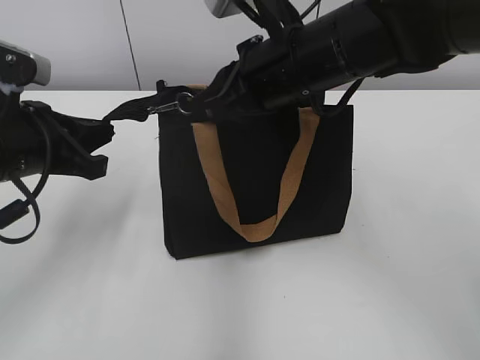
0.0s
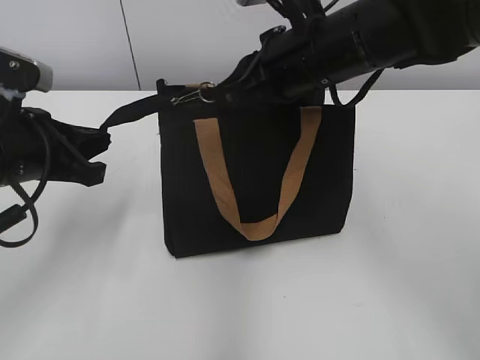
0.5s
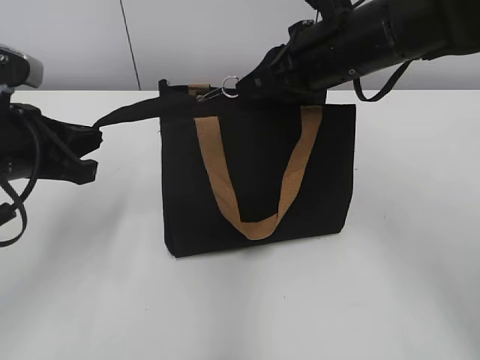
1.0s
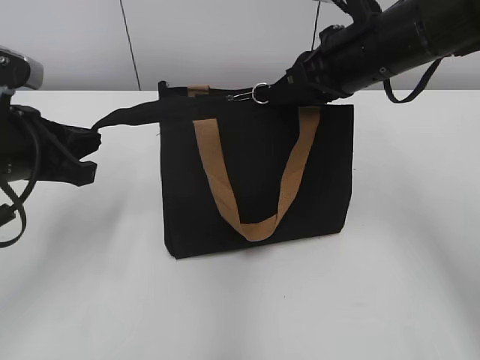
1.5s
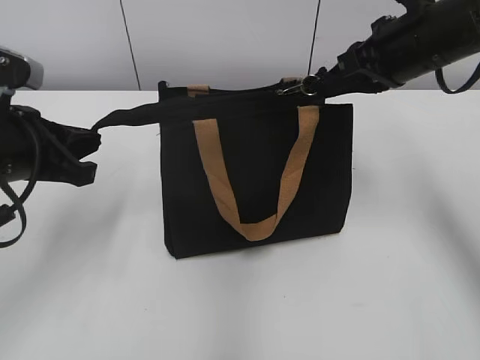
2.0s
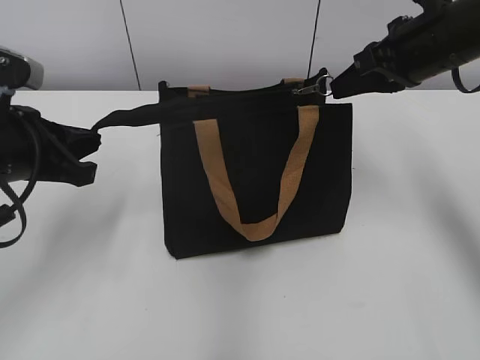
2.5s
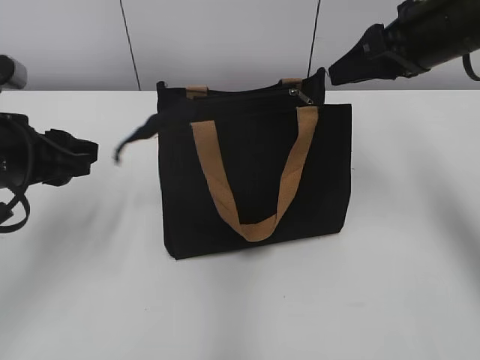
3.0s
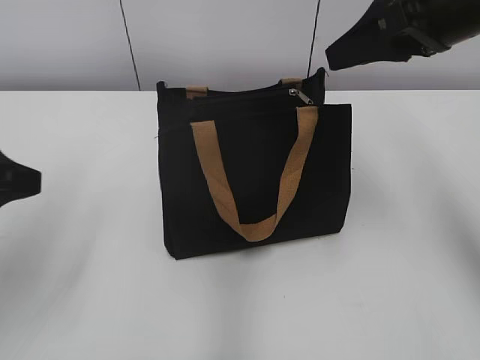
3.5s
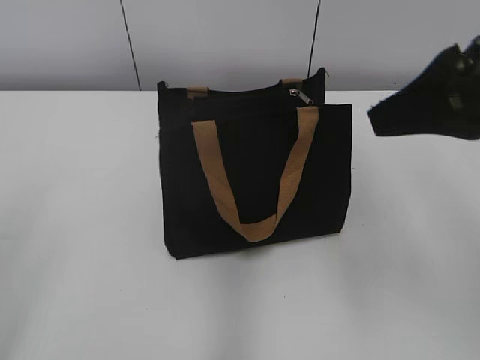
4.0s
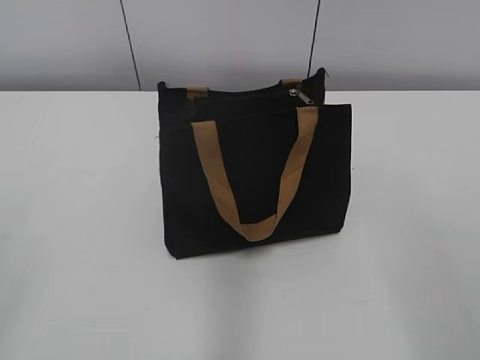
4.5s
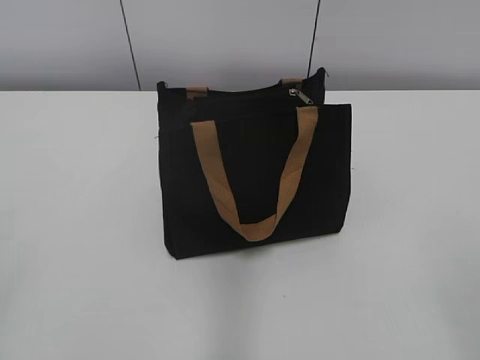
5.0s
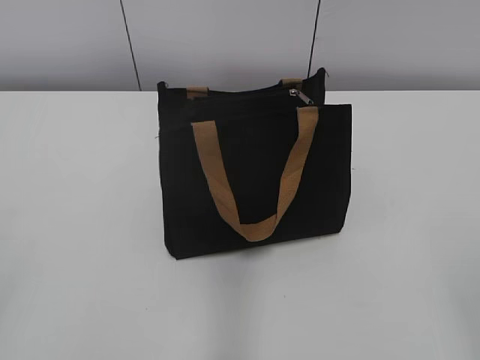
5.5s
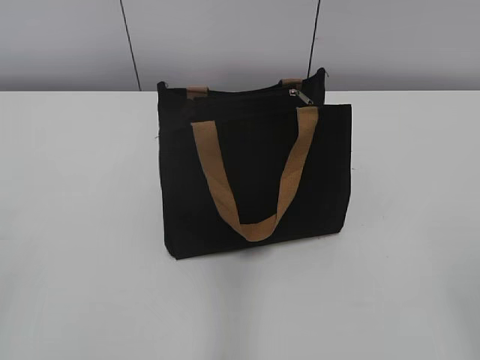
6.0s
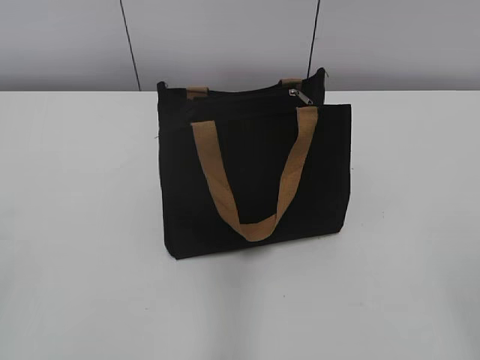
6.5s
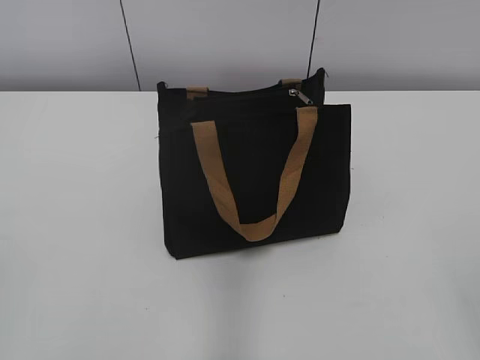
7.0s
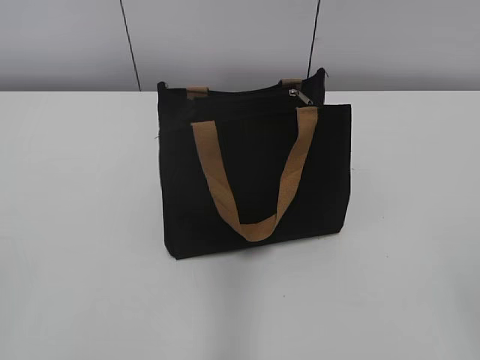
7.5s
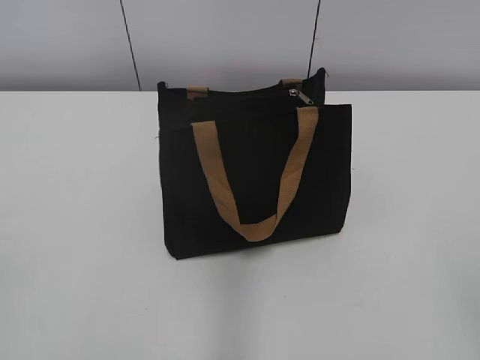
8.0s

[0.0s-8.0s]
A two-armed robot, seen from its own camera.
Step, 0.0s to 2.5s: Zip up the bag with your right hand.
0.0s to 2.0s: The right gripper shifts roughly 10 cm to the right.
2.0s to 4.0s: The right gripper heads backward and upward, covering approximately 15 cm, and opens up; the left gripper is displaced backward, upward and to the left by roughly 20 cm, and opens up.
4.0s to 6.0s: The right gripper travels backward by approximately 20 cm.

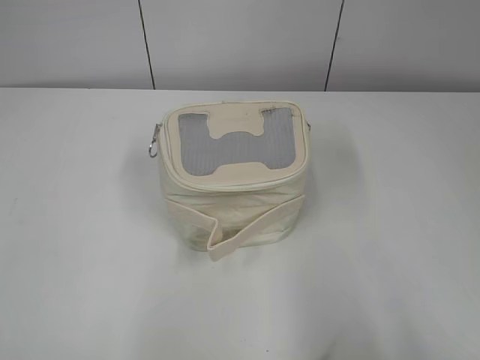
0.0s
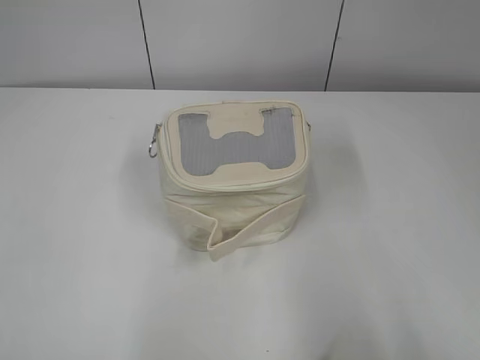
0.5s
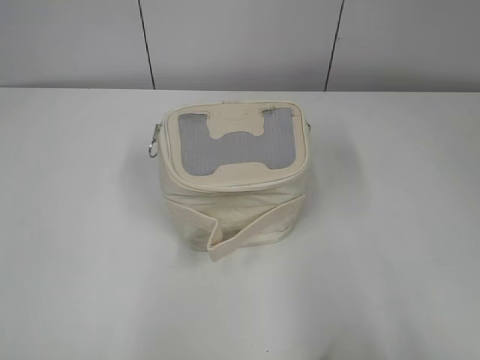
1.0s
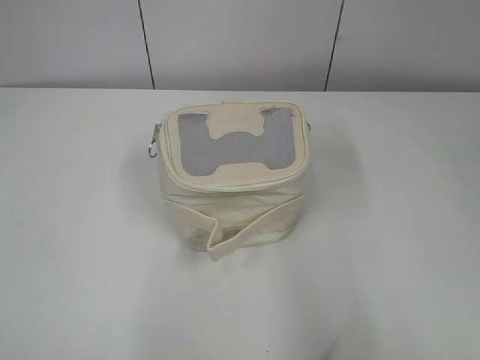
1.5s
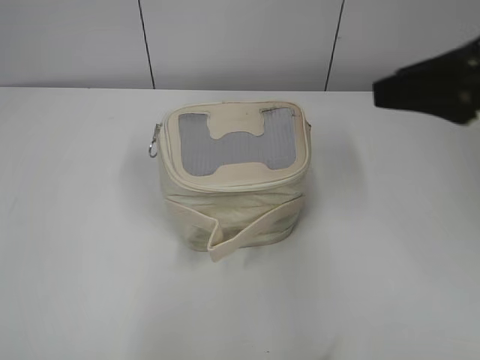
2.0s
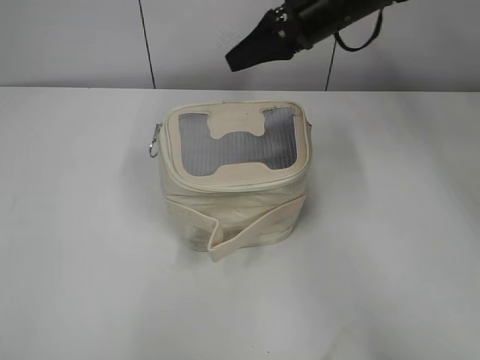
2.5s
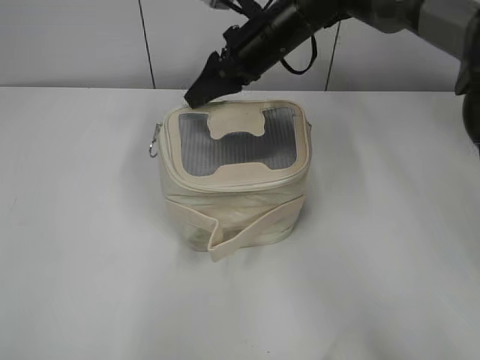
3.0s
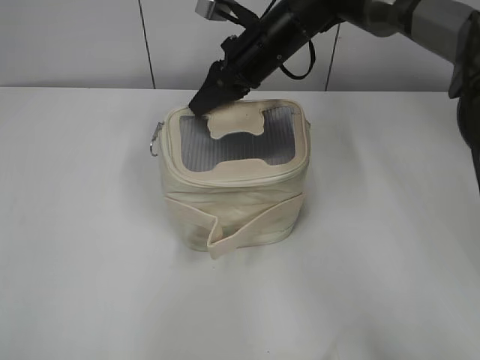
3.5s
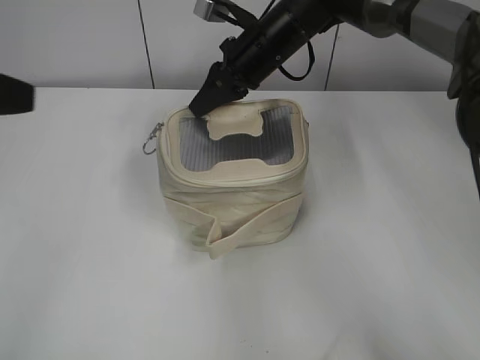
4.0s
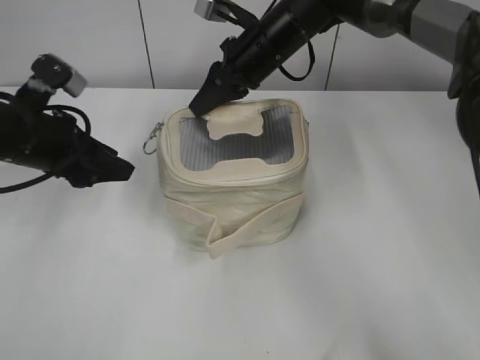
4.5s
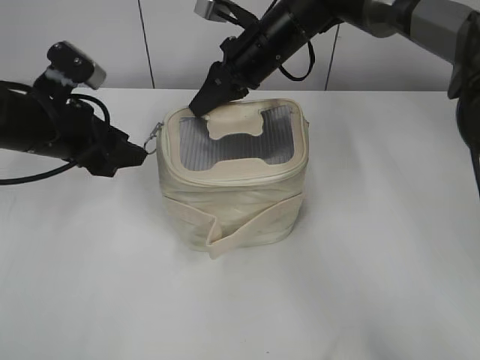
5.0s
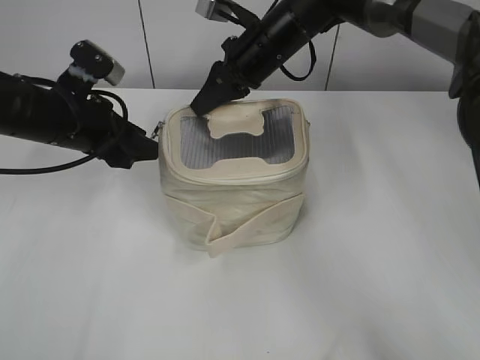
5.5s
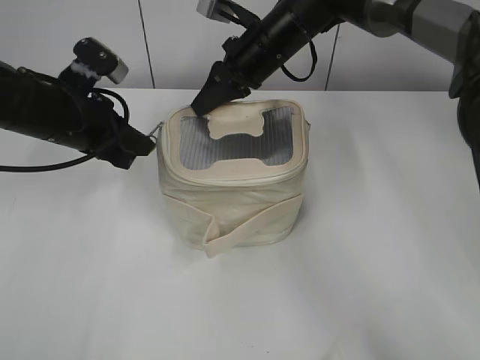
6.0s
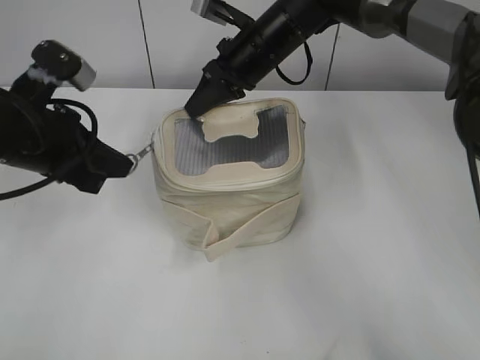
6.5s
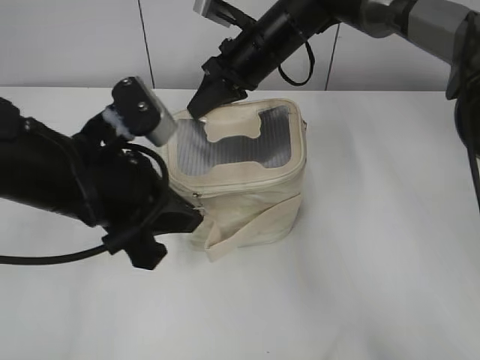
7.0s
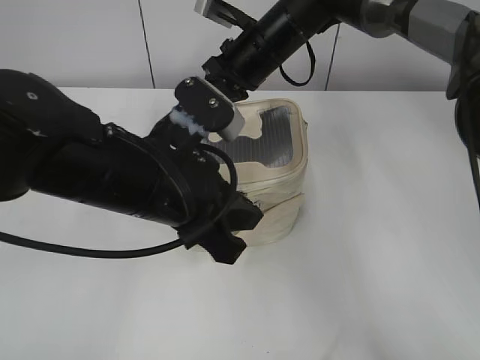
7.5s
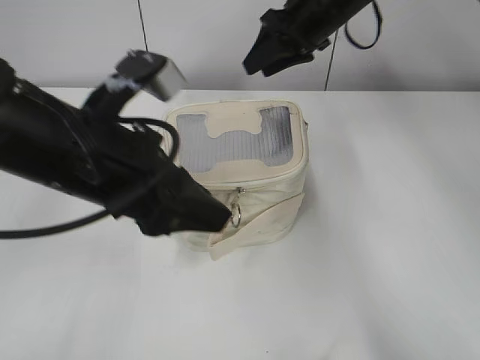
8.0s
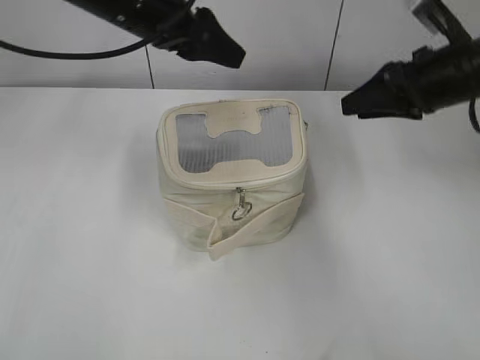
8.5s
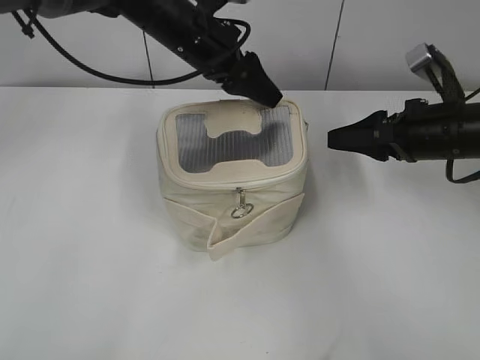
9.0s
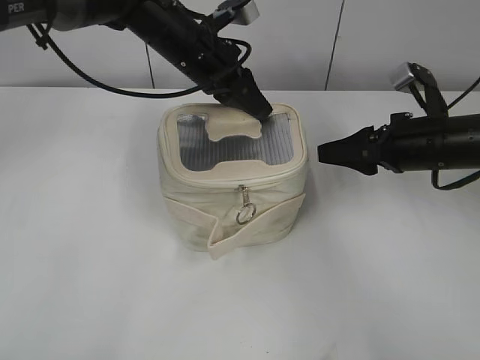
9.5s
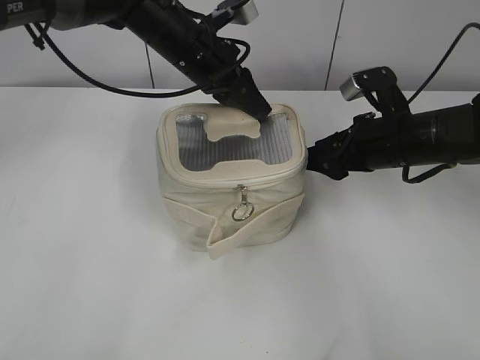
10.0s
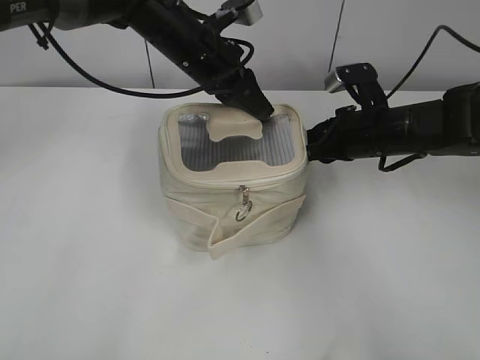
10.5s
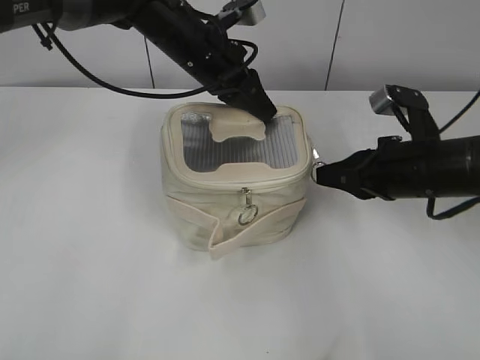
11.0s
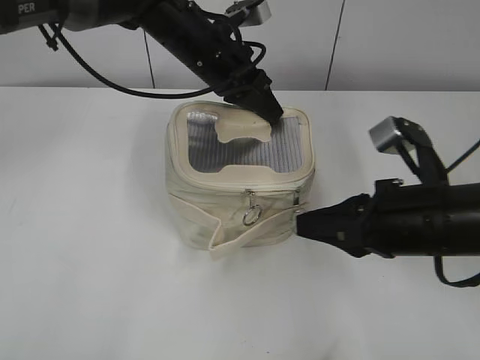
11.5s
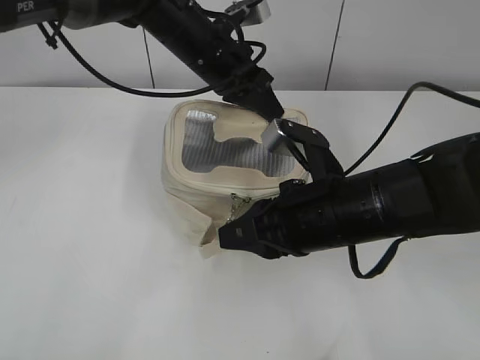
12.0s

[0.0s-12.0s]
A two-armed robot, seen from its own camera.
Step, 0.0s to 7.5s: Zip up the bag with your left hand.
Step, 8.0s to 12.0s: Zip up the bag with your right hand.
2.0s to 4.0s: The left gripper moves forward, roughly 15 cm; the right gripper heads forward and to the left, covering approximately 35 cm, and closes.
4.0s to 6.0s: The left gripper travels forward, downward and to the right by about 25 cm, and closes its fingers.
6.0s to 8.0s: The left gripper travels backward and to the right by roughly 15 cm, and opens. Meanwhile the right gripper heads to the right, covering some 5 cm, and opens.
8.0s to 10.0s: The right gripper is displaced backward, to the right and downward by about 20 cm, while the left gripper shifts roughly 25 cm forward, and closes its fingers.
10.0s to 12.0s: The right gripper is displaced backward and to the left by roughly 15 cm, and closes its fingers.

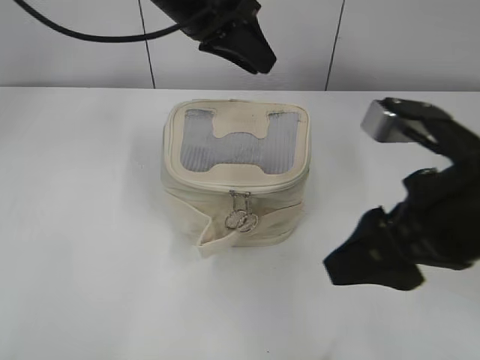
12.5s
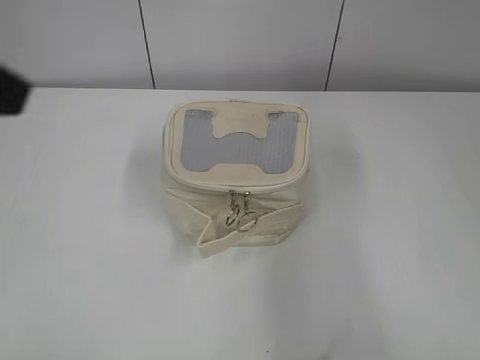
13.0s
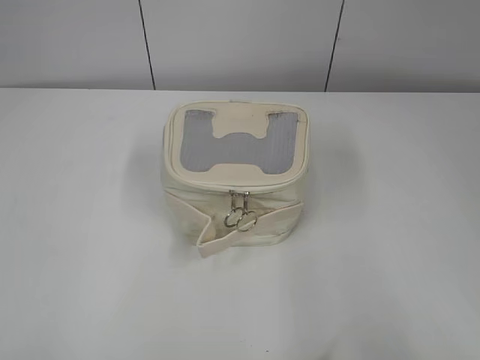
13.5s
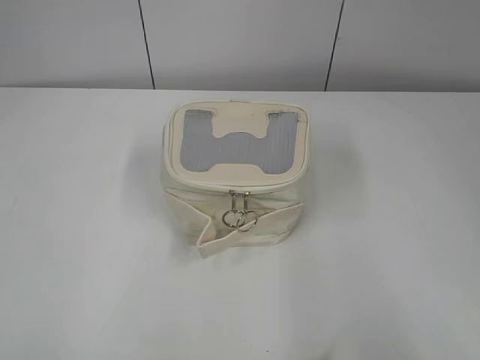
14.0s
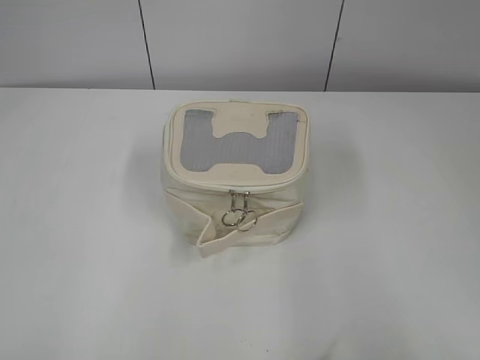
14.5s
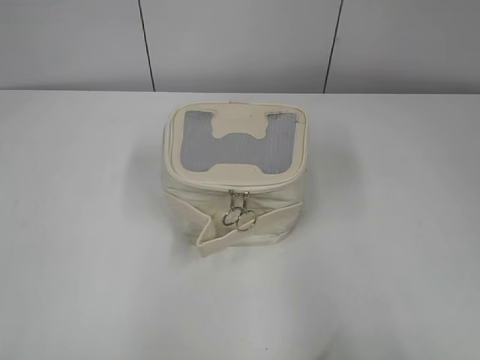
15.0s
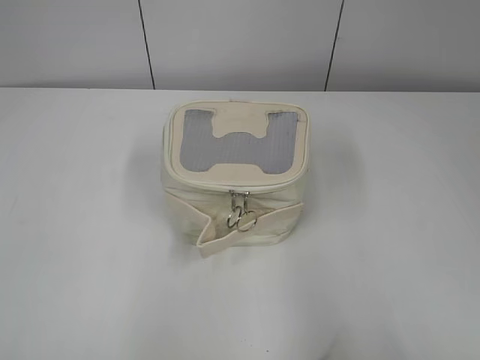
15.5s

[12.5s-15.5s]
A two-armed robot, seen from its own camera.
12.5s to 14.0s: The left gripper moves backward and to the left, approximately 50 cm; the right gripper is displaced backward and to the right by some 25 cm.
